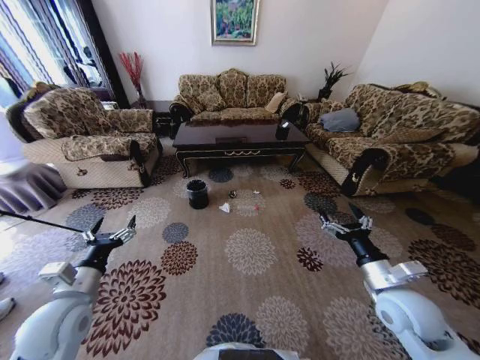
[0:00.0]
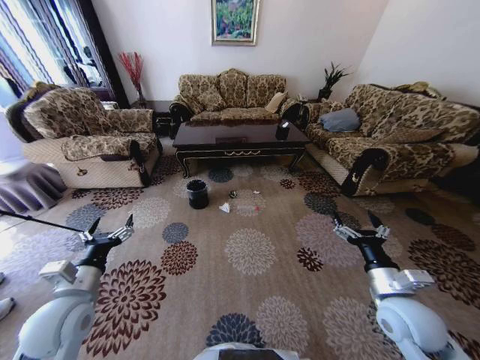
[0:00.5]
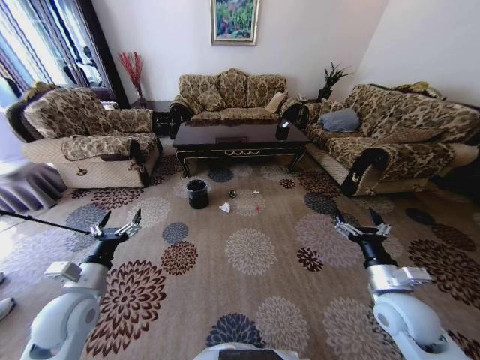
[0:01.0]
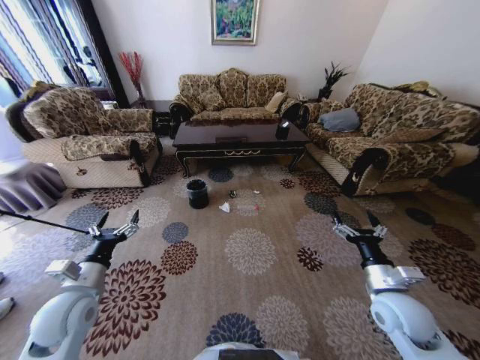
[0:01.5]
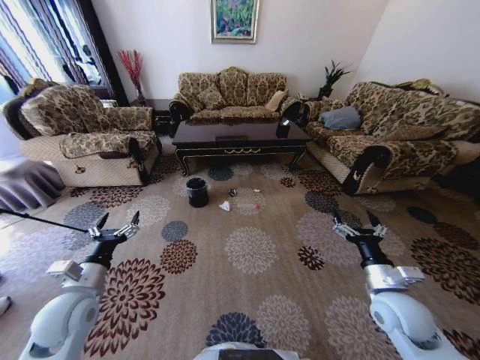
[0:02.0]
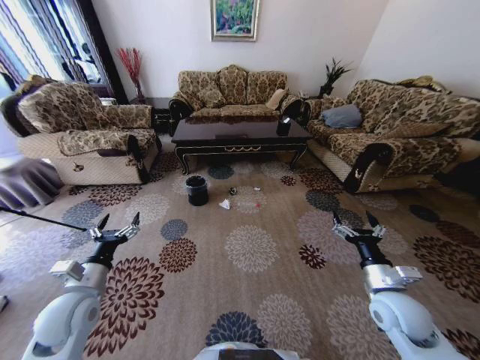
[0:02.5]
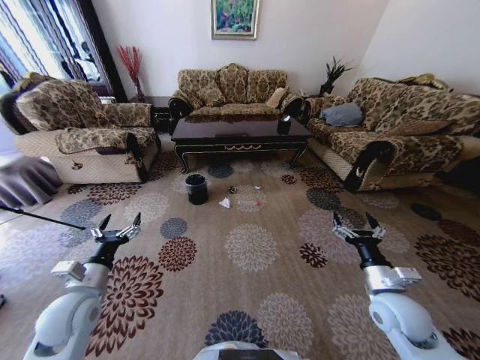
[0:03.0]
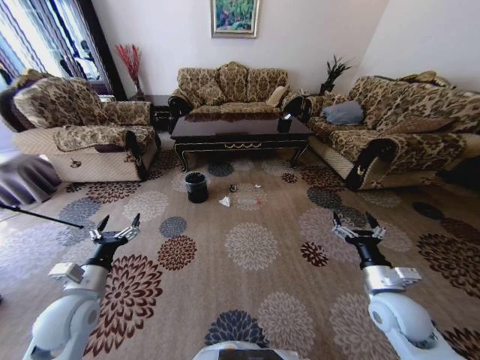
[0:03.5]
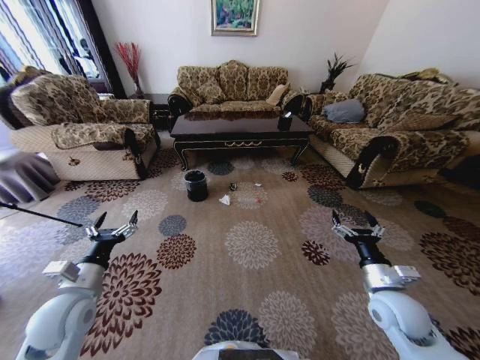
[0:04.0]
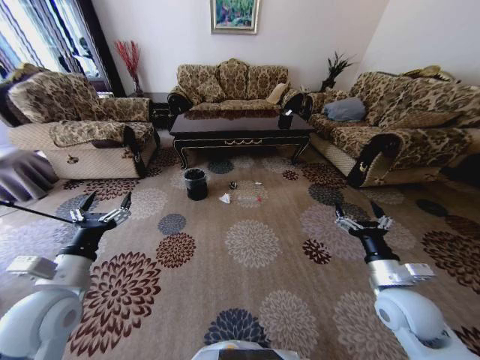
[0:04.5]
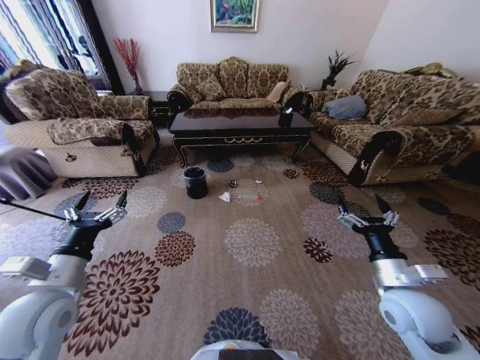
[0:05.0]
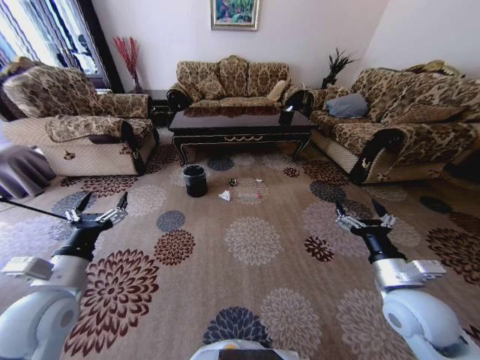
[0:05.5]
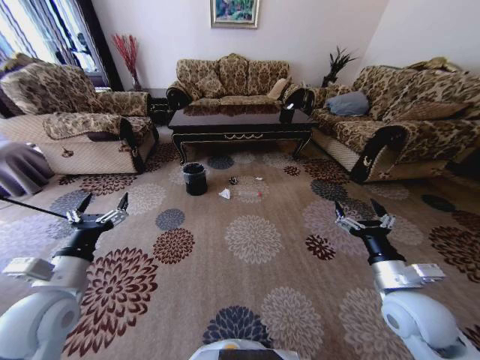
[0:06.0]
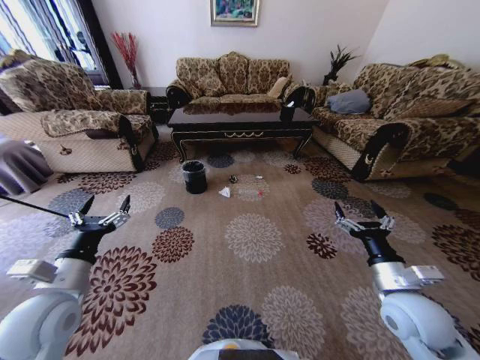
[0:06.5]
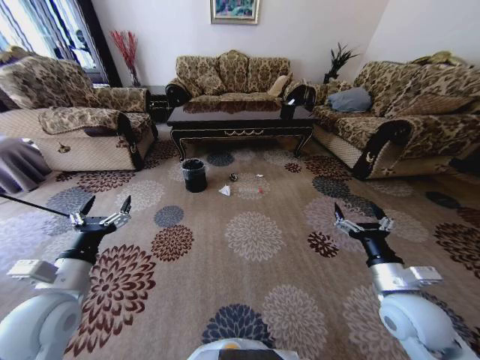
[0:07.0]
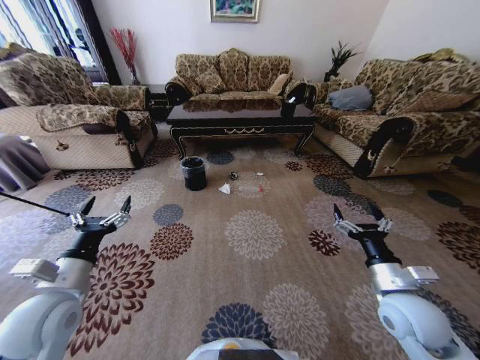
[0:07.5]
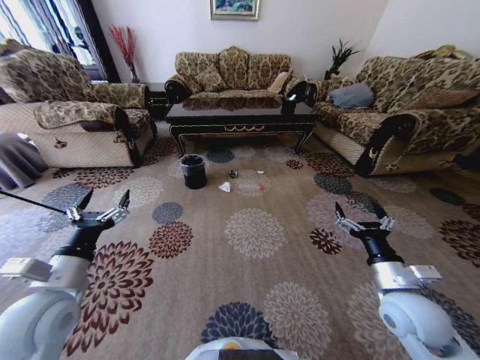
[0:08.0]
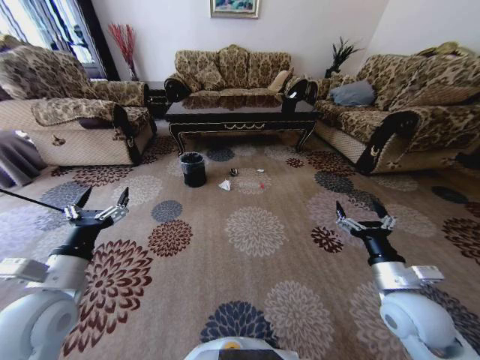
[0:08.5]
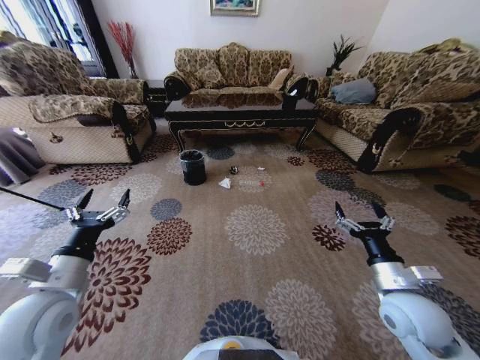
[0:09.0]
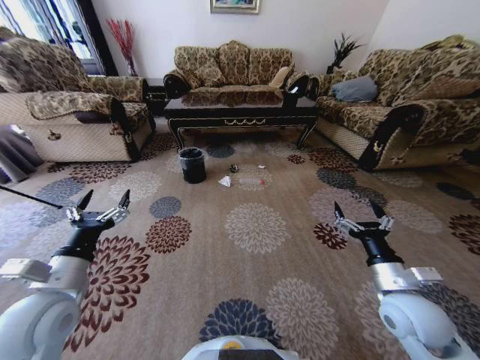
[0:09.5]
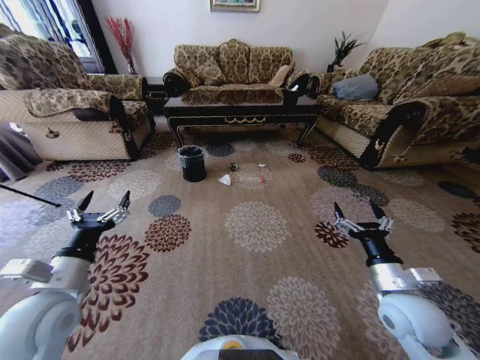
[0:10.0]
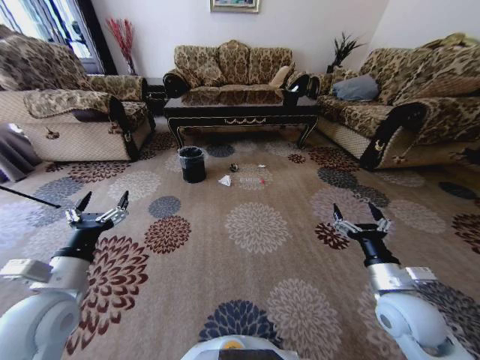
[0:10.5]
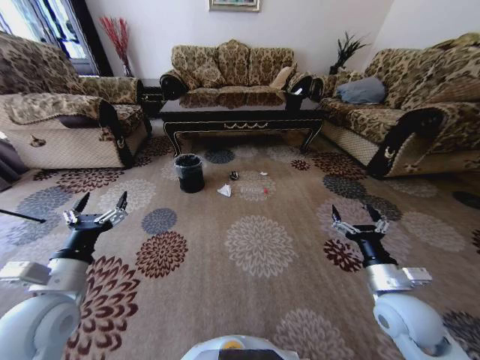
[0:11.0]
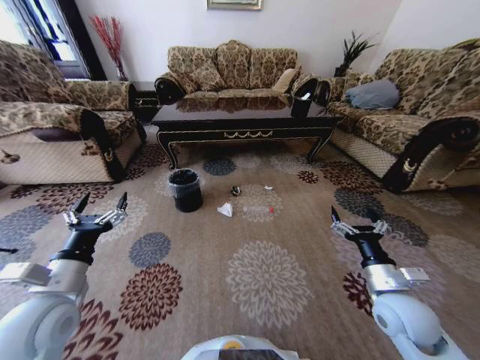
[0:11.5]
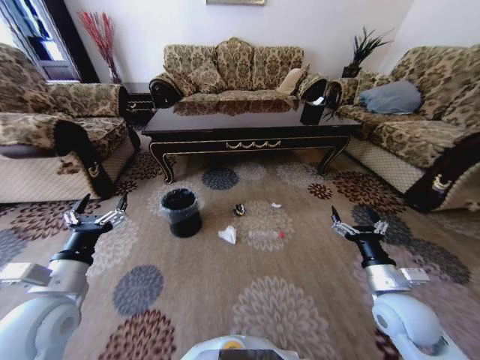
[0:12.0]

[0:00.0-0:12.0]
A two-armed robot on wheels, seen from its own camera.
Task of the whole recording: Move to the front of the table and pick up the trash from the floor, then place it into the trash bin.
0:04.0 to 0:06.0: The two grippers go approximately 5 cm upward.

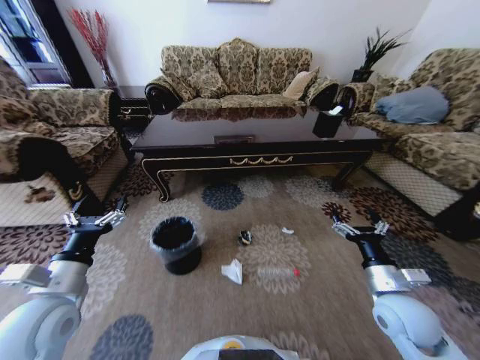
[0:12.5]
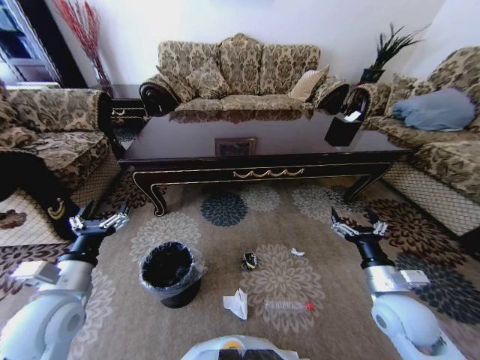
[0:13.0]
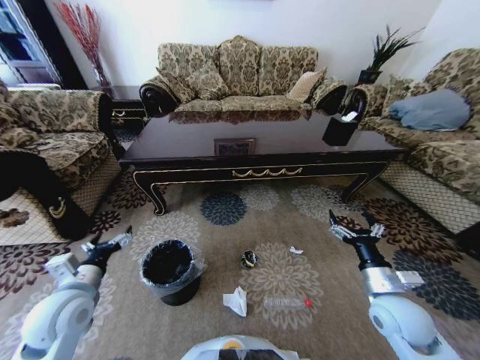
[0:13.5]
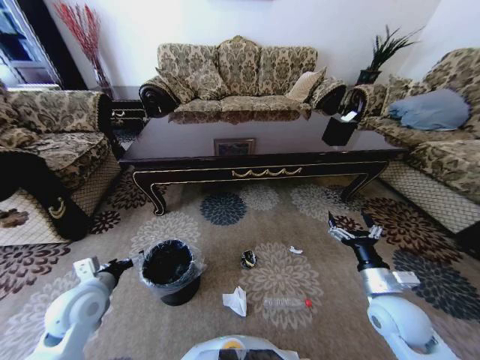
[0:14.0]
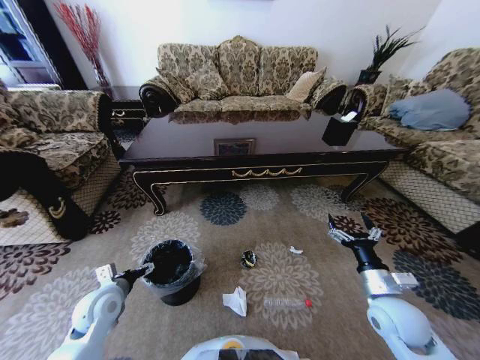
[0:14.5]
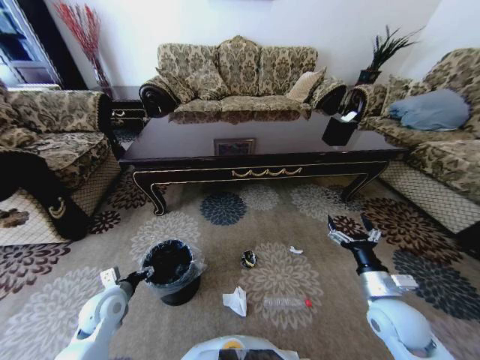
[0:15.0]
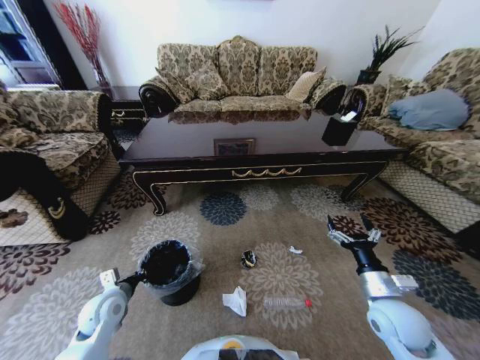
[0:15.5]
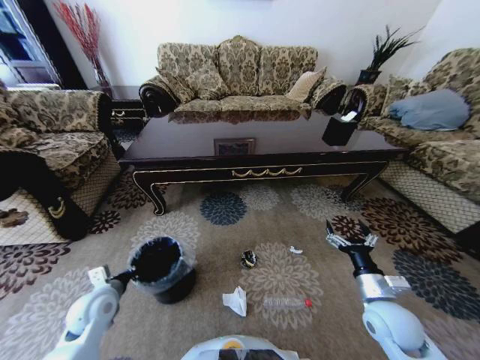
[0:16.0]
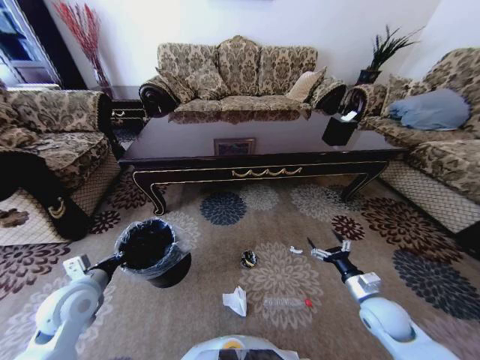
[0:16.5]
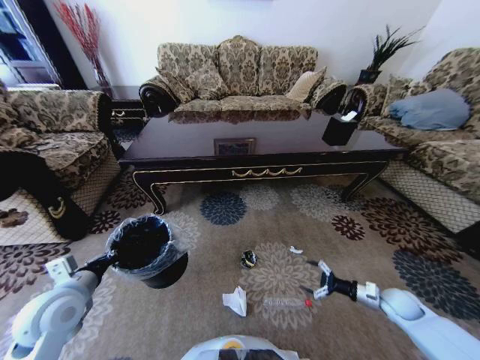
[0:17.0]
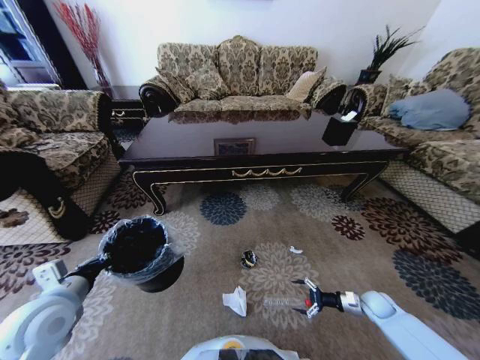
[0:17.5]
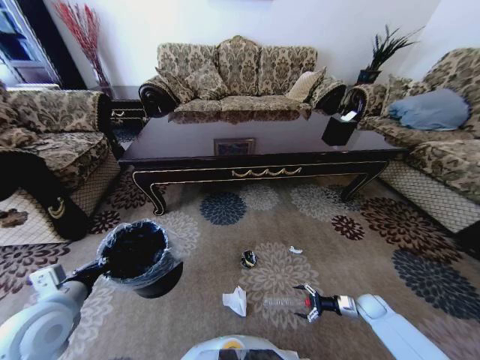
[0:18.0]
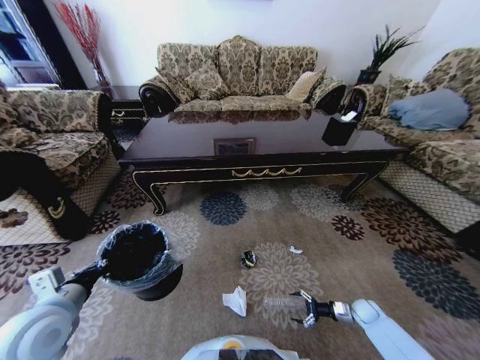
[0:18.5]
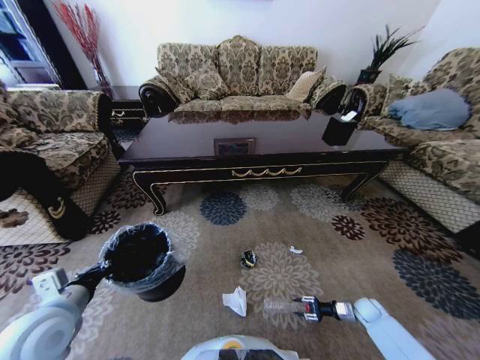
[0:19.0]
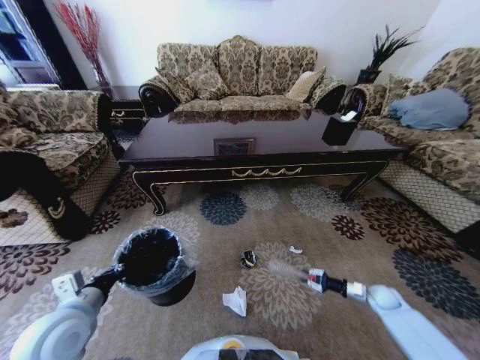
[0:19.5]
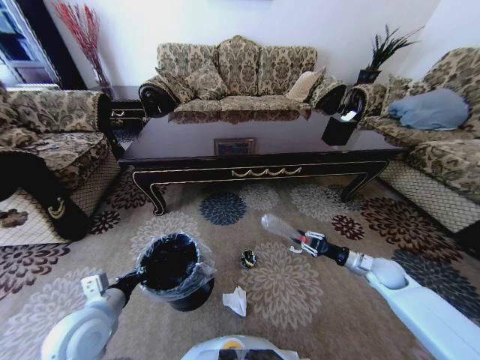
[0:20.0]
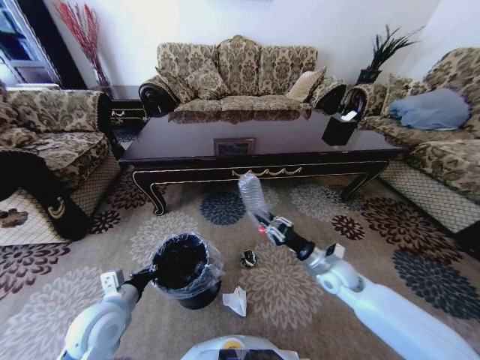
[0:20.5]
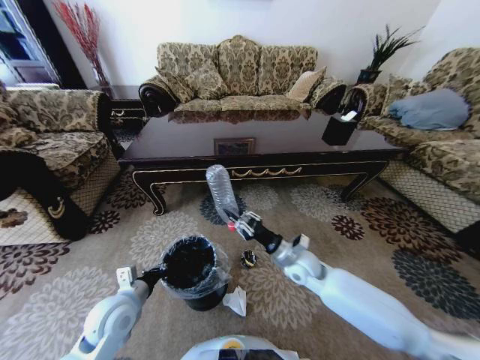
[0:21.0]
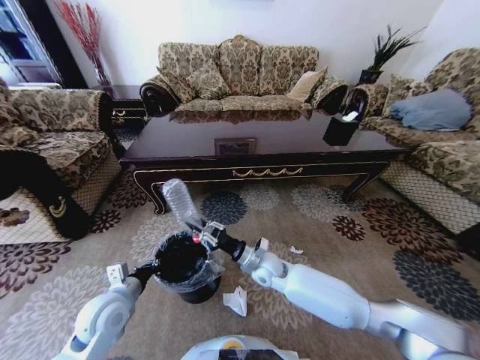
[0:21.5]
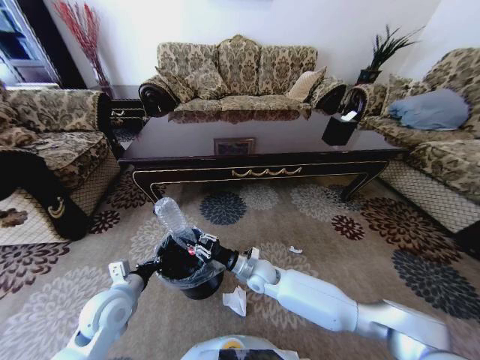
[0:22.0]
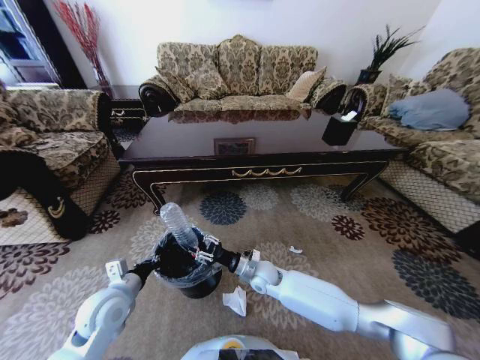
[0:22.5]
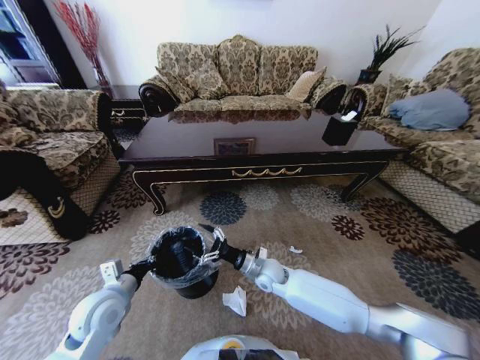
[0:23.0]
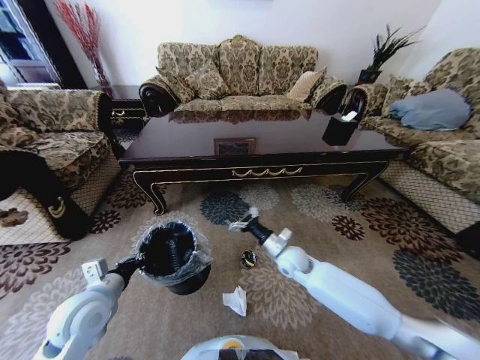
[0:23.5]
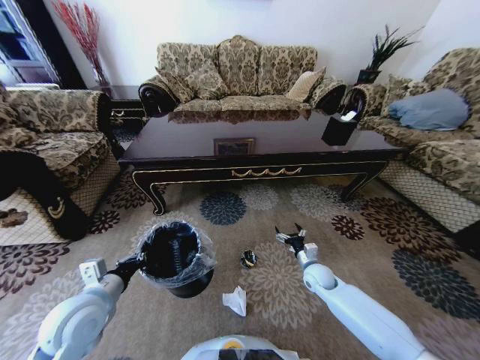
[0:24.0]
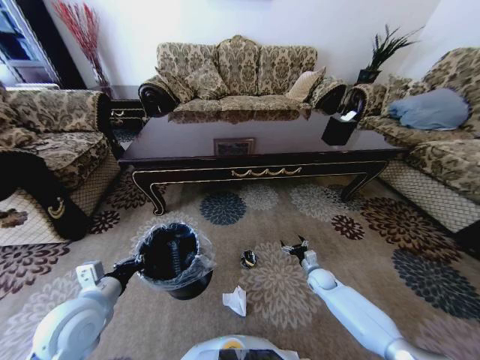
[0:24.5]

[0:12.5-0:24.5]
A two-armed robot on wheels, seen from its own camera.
Task of the whole recording: Move to the front of the table and pick up the trash from the floor, then place it into the trash bin.
0:12.5 to 0:14.5: The left gripper travels downward and forward by roughly 15 cm.
0:14.5 to 0:16.5: The right gripper moves downward, about 5 cm. Meanwhile the left gripper travels upward by about 5 cm, and closes up.
0:16.5 to 0:18.5: The left gripper travels backward by approximately 5 cm, while the right gripper shifts about 20 cm downward and to the right.
0:18.5 to 0:20.5: The right gripper moves upward and to the left, roughly 30 cm, and closes up. The left gripper travels to the right and downward by some 10 cm.
0:20.5 to 0:22.5: The right gripper moves to the left and downward, some 20 cm.
0:22.5 to 0:24.5: The right gripper is displaced to the right and downward by some 30 cm, and opens; the left gripper moves upward, some 5 cm.

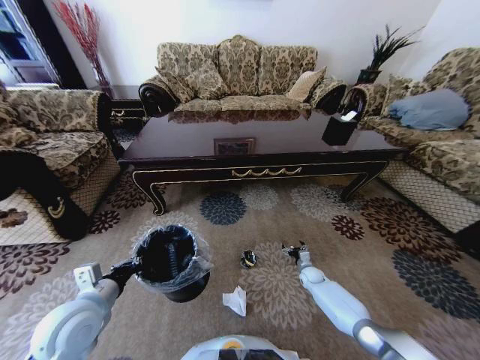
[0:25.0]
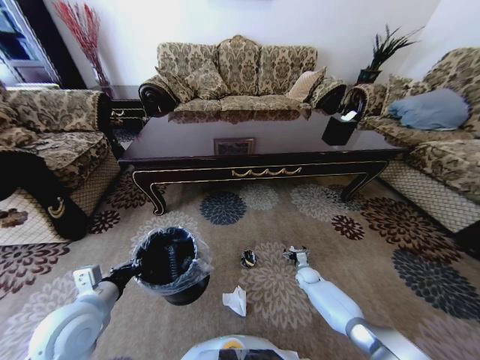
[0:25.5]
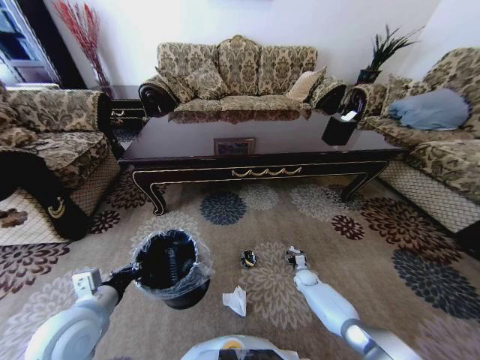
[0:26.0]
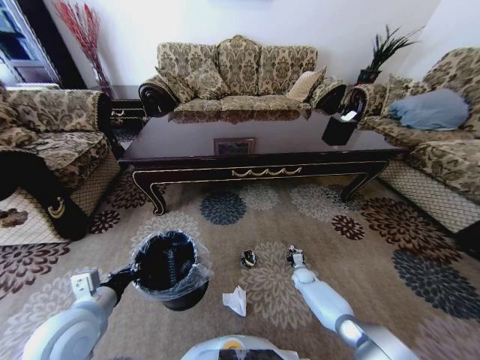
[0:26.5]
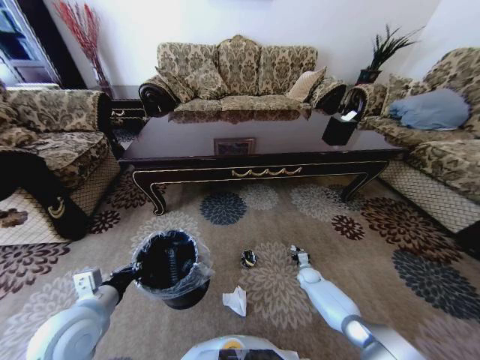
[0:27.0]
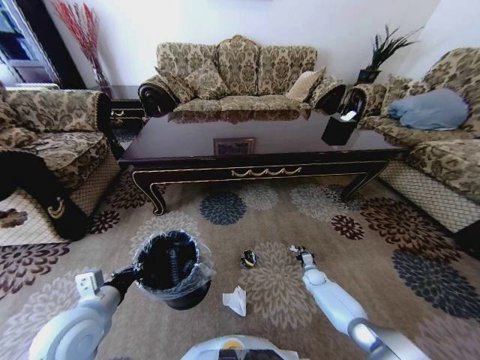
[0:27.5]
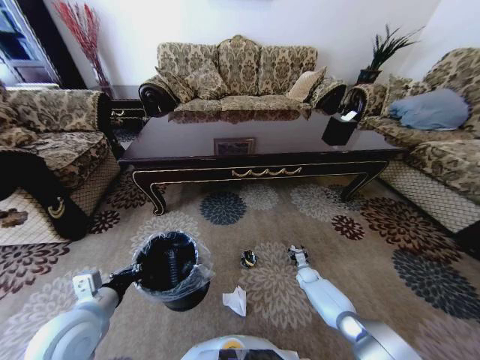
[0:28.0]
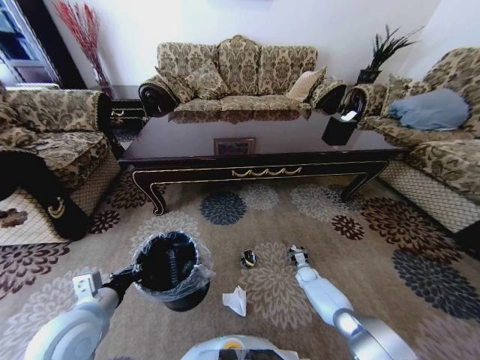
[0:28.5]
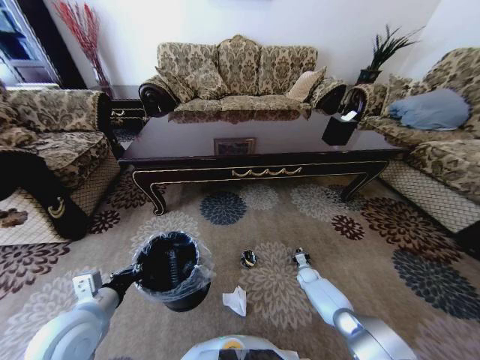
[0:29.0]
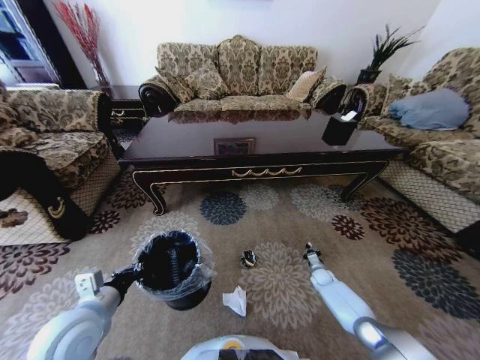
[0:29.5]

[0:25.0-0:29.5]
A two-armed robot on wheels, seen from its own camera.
Task of the whole recording: Move to the front of the table and pick up the trash from the floor, then place it into the trash bin.
0:25.0 to 0:27.0: The right gripper closes.
0:27.0 to 0:29.5: The right gripper shifts approximately 5 cm to the right, and opens, then closes again.
